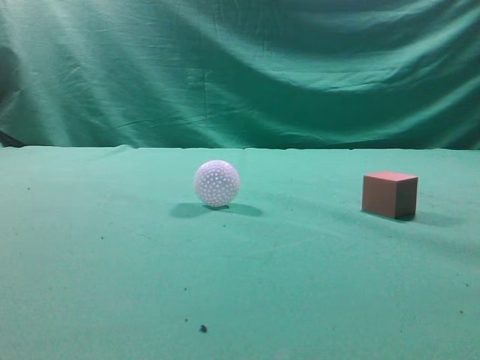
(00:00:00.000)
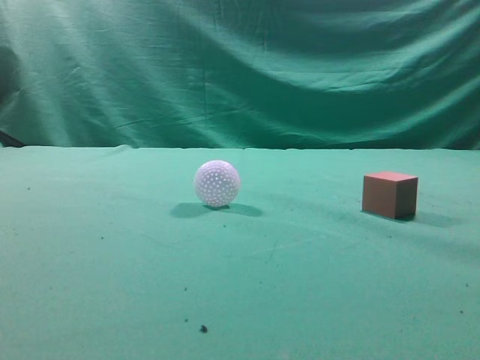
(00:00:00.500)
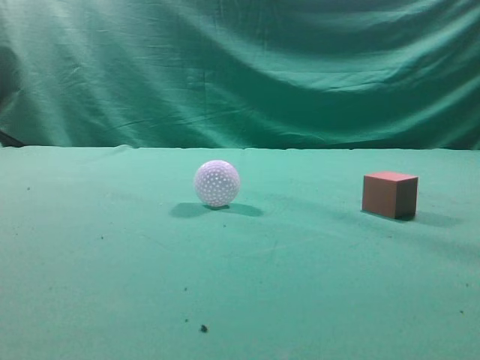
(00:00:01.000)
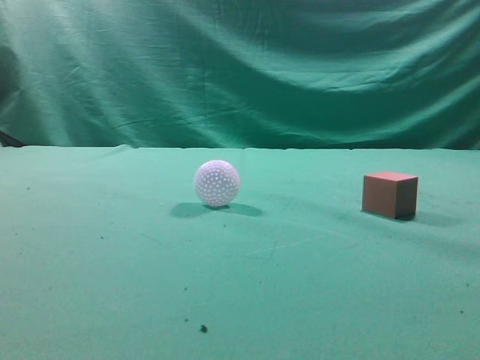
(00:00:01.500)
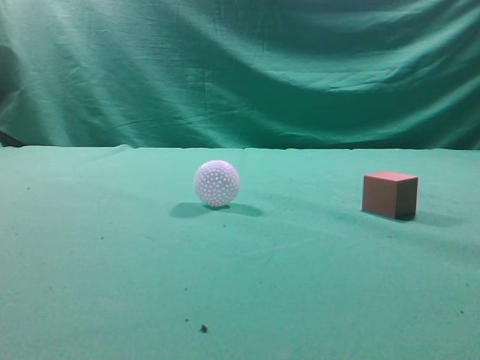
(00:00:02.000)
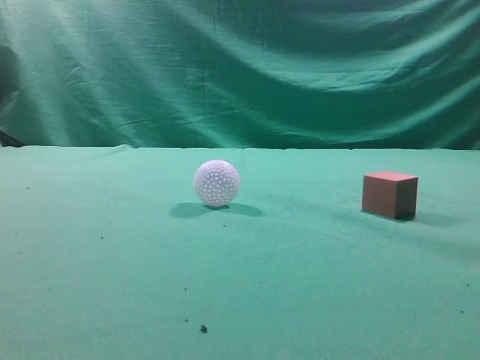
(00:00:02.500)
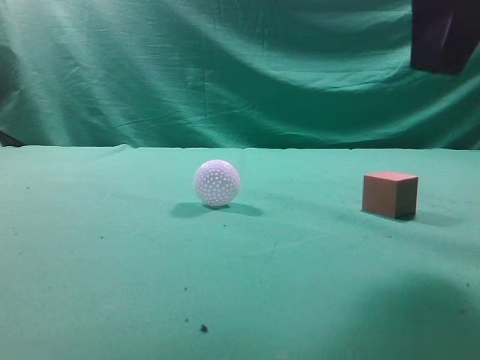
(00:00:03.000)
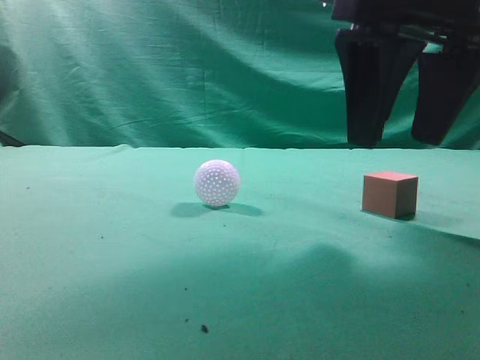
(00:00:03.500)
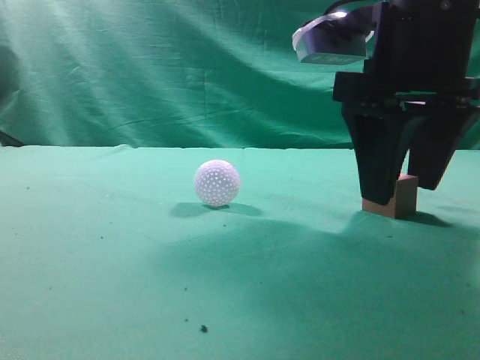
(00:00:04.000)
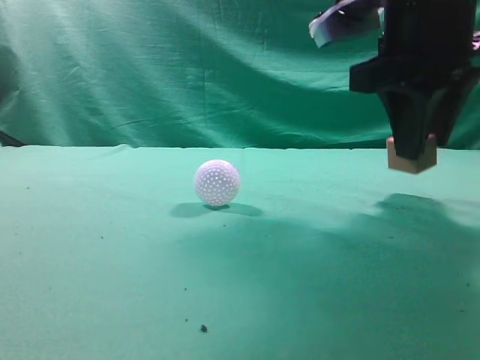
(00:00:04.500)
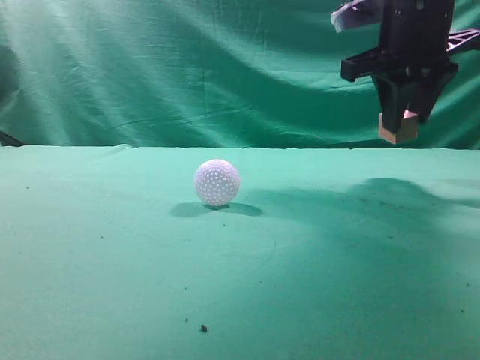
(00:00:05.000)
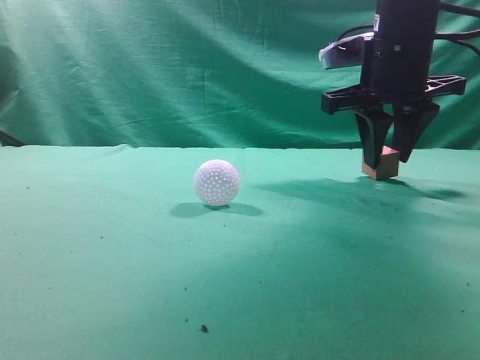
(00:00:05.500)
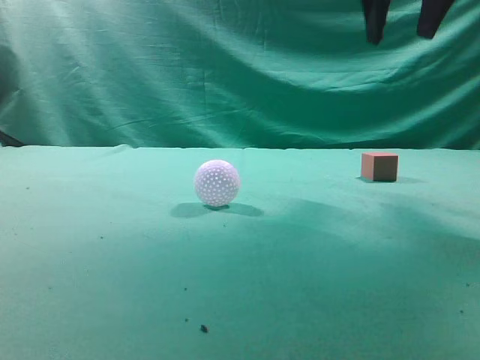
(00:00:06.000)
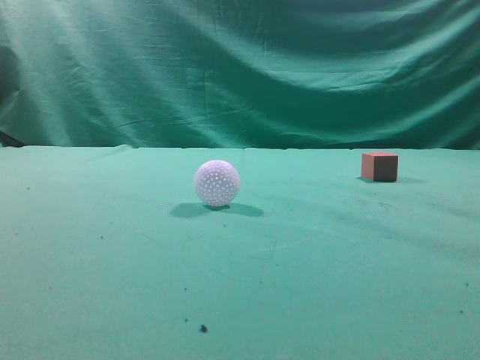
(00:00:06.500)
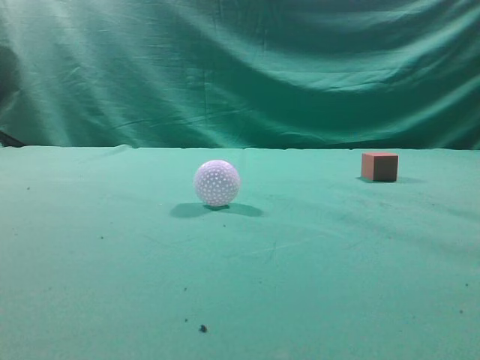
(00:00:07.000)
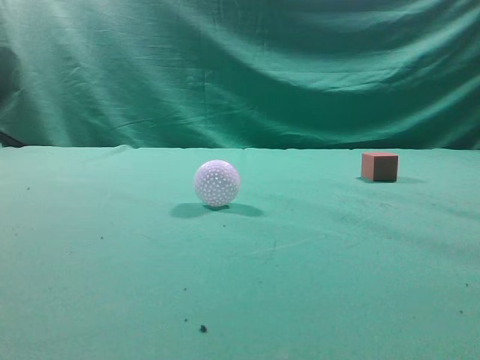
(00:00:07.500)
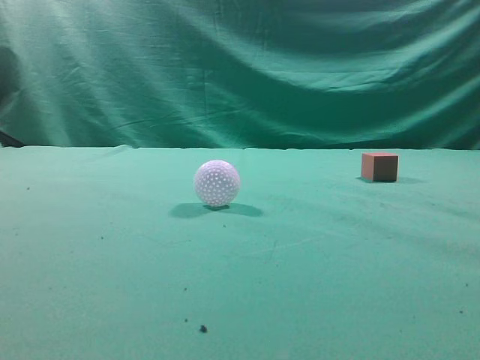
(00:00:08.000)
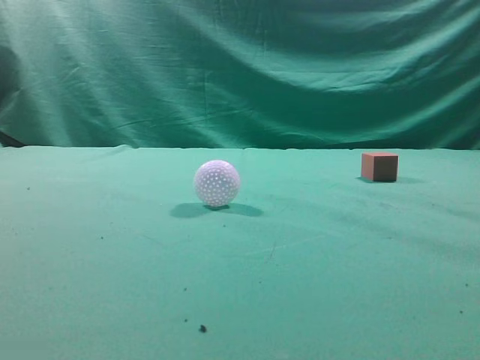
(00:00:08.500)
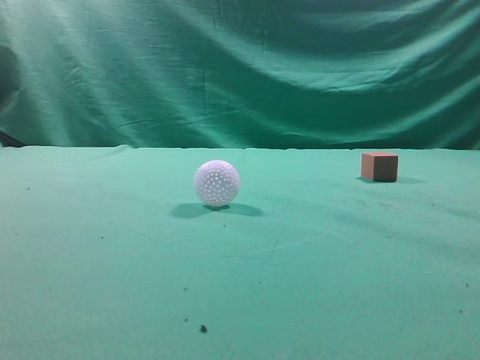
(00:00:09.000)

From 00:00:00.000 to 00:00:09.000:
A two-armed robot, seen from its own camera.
Task of the whole recording: pick up the cube block and place it in another position on the table.
Step, from 00:00:00.000 to 00:00:04.000: Pick up the small cube.
Step, from 00:00:04.500 to 00:00:05.500: Place the small cube on the ahead of the table.
From 00:00:02.000 to 00:00:04.500: The right gripper travels forward and to the left by some 25 cm, and opens.
From 00:00:04.500 to 00:00:07.000: The right gripper moves backward, upward and to the right, roughly 25 cm, and closes up.

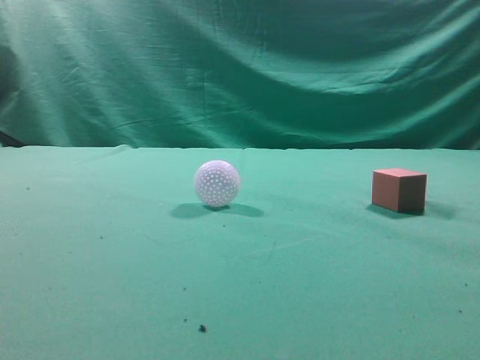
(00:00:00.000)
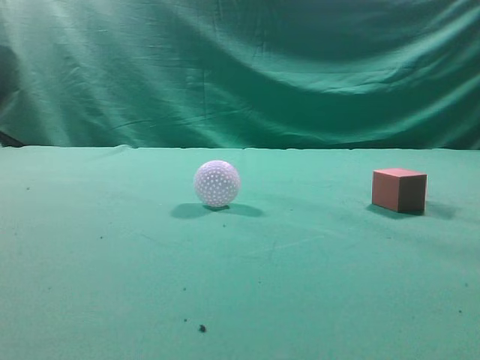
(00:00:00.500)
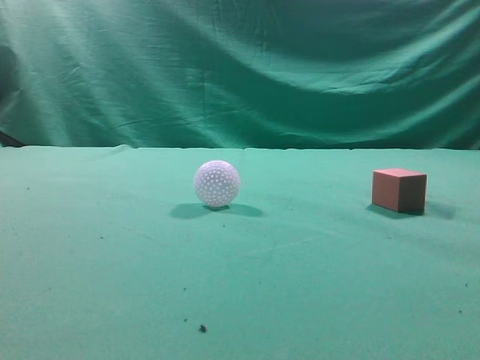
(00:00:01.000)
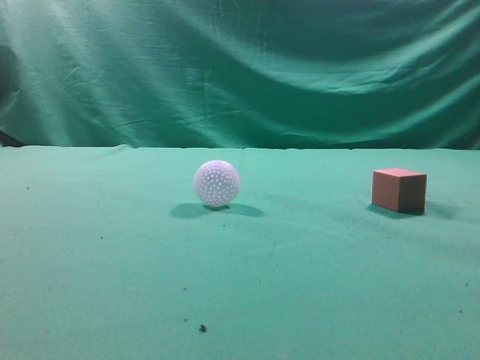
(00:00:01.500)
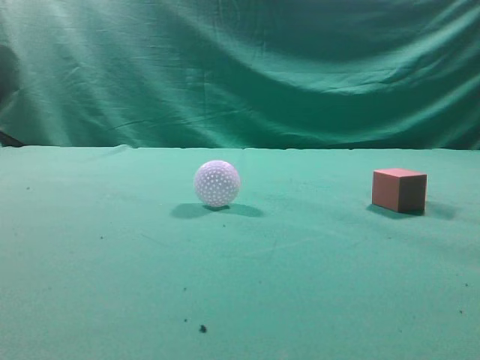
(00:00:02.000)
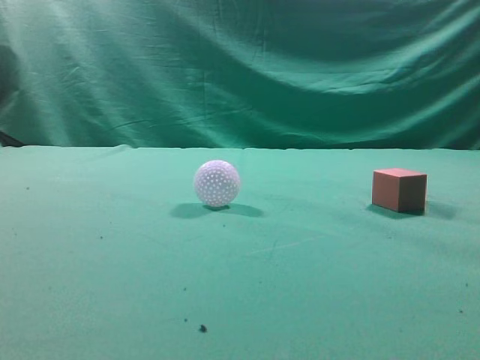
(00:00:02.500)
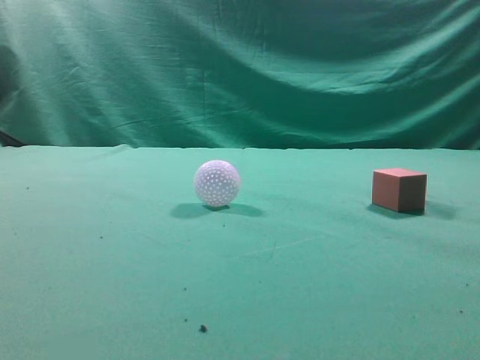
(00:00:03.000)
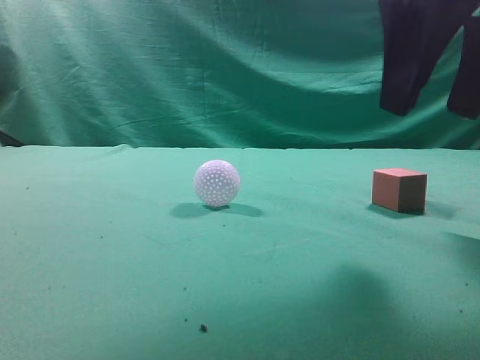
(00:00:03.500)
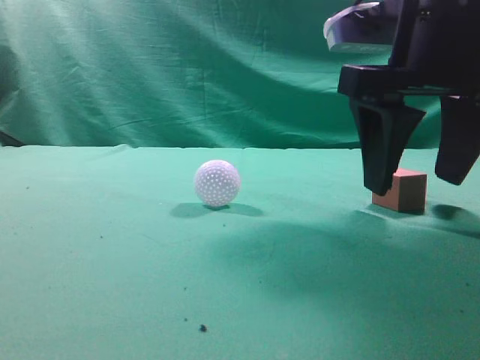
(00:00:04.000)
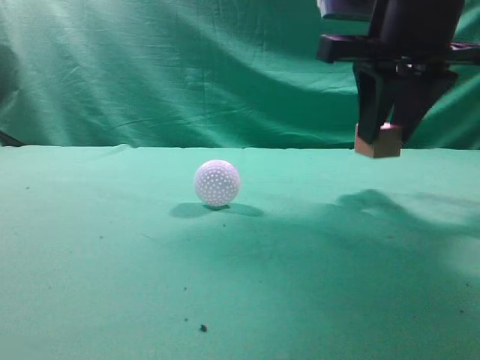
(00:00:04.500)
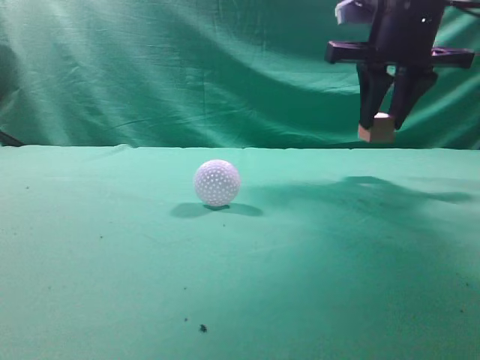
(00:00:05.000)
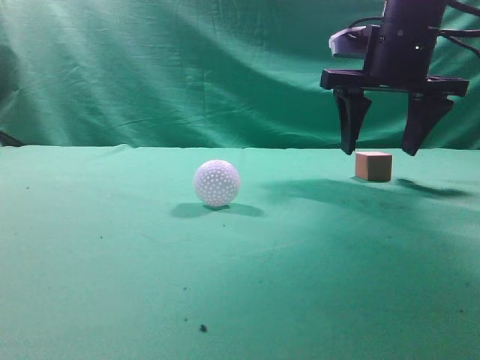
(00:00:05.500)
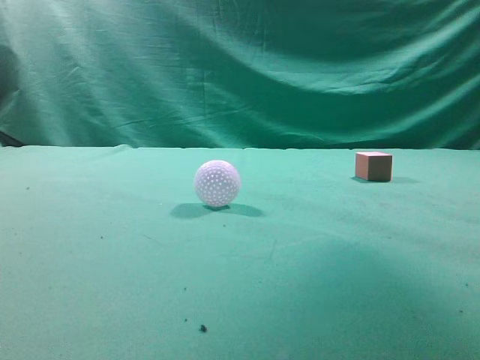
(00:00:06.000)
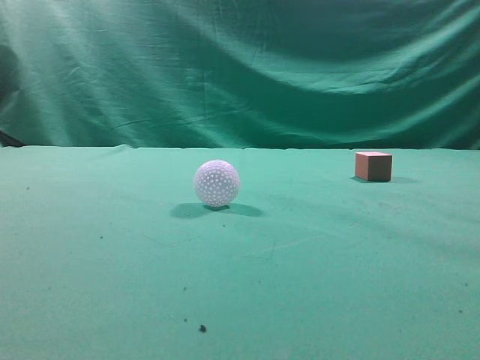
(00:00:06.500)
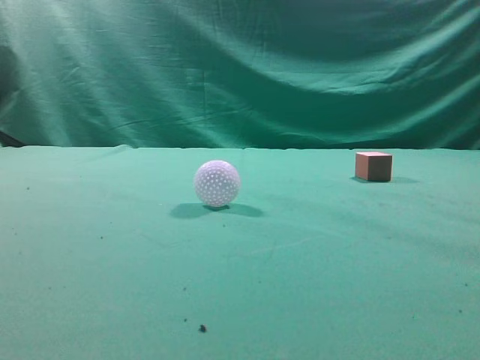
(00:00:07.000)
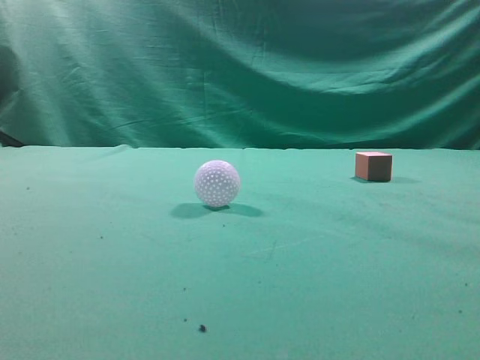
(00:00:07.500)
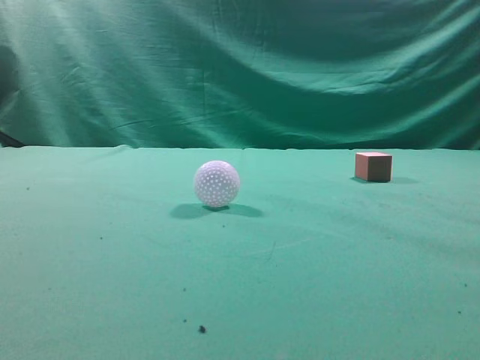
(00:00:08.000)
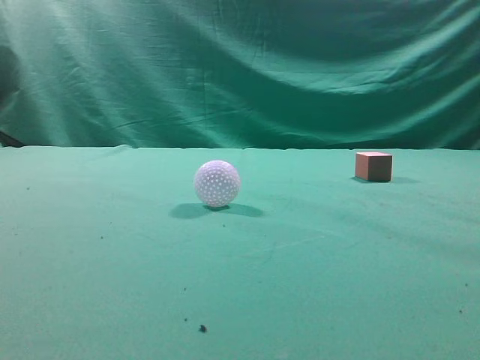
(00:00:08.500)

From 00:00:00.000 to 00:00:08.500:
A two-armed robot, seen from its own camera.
Task of the whole recording: pick up the cube block and place it in another position on the table.
Step, from 00:00:00.000 to 00:00:04.000: Pick up the small cube.
Step, from 00:00:04.500 to 00:00:05.000: Place the small cube on the ahead of the table.
From 00:00:02.000 to 00:00:04.000: The right gripper is displaced forward, downward and to the left by approximately 30 cm, and opens up.
From 00:00:04.000 to 00:00:06.500: The right gripper goes about 20 cm upward, backward and to the right, and closes up.
